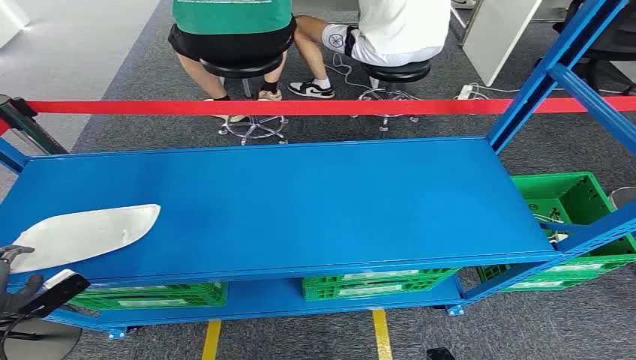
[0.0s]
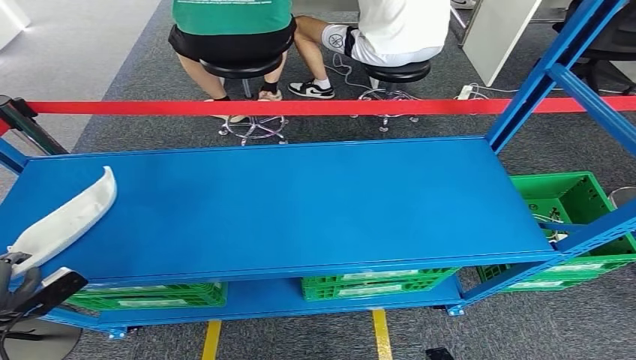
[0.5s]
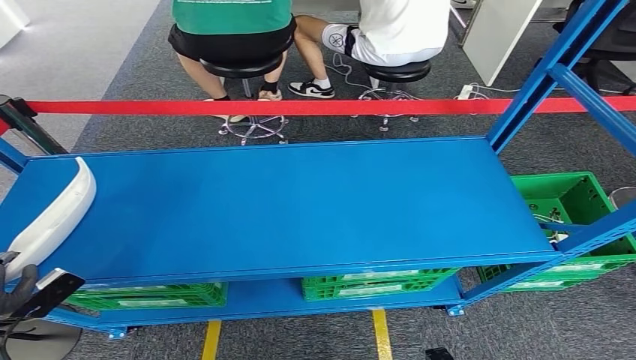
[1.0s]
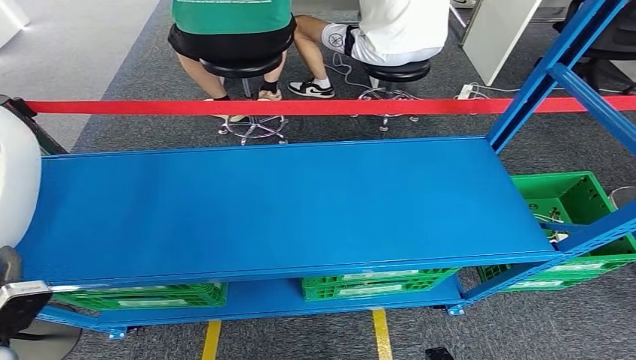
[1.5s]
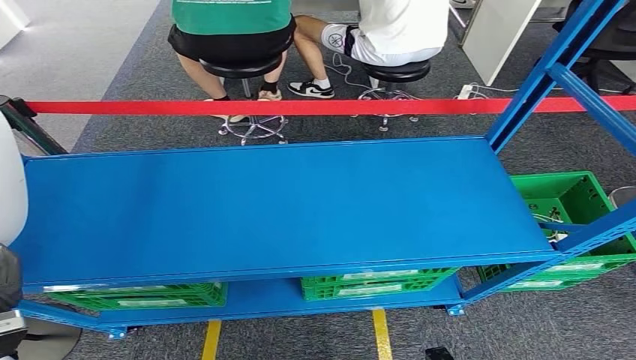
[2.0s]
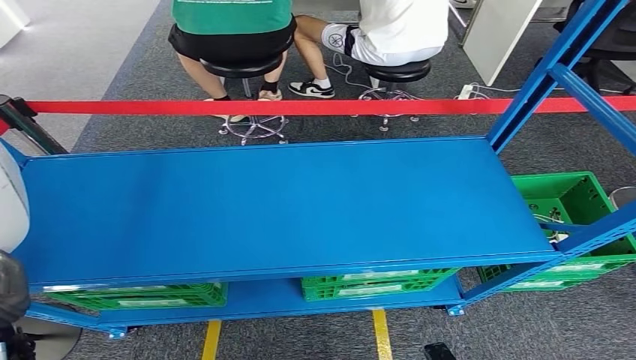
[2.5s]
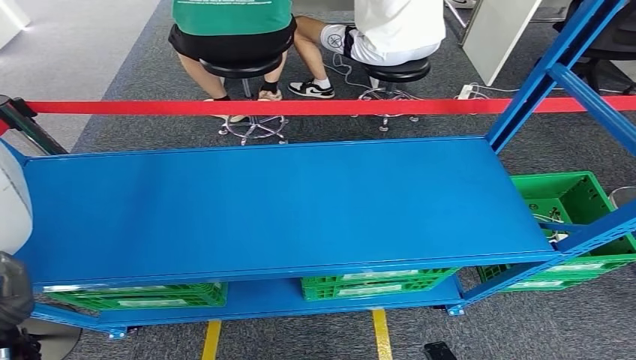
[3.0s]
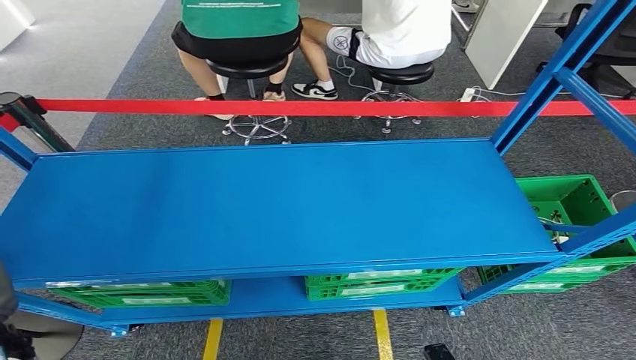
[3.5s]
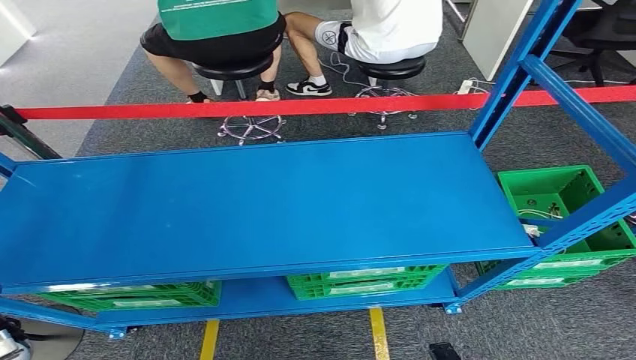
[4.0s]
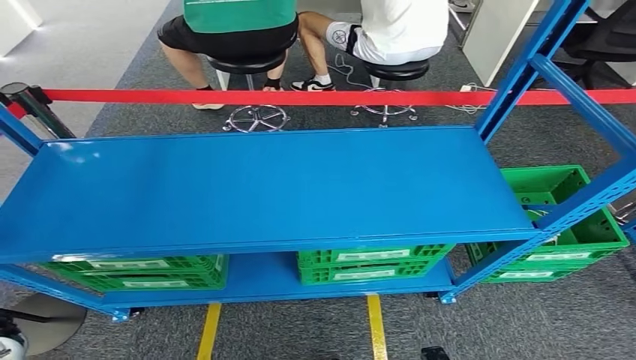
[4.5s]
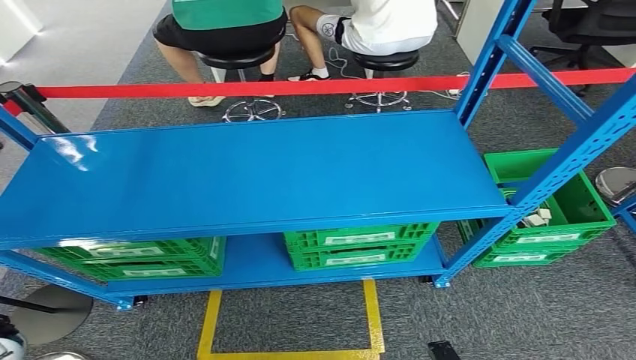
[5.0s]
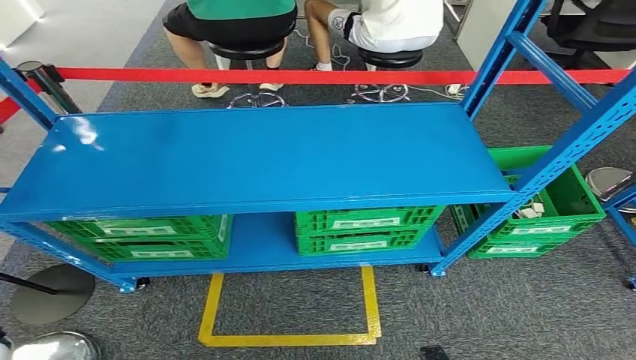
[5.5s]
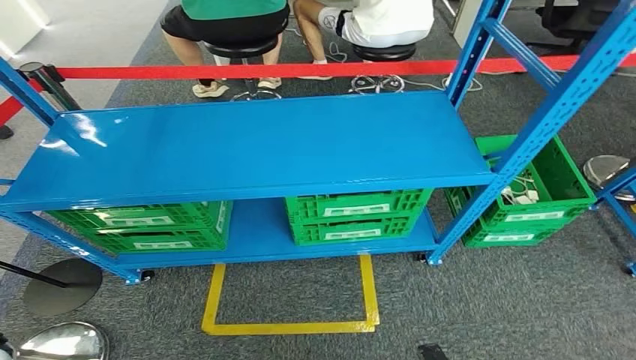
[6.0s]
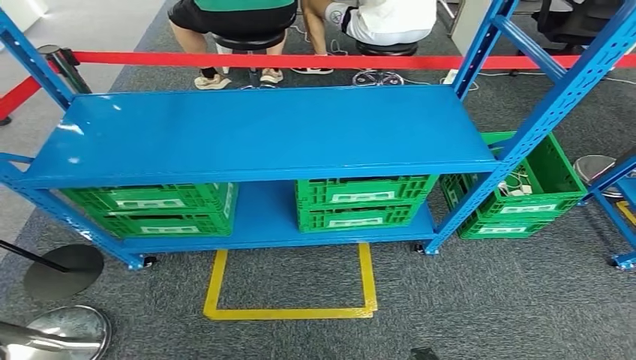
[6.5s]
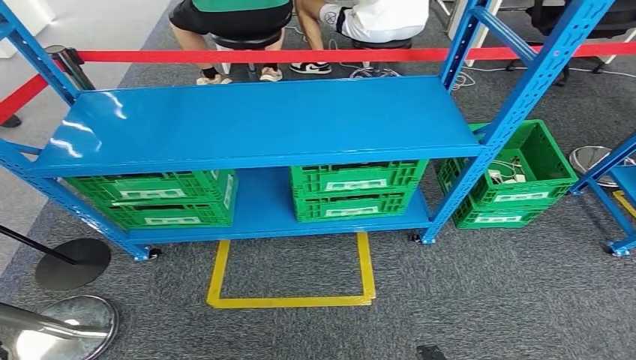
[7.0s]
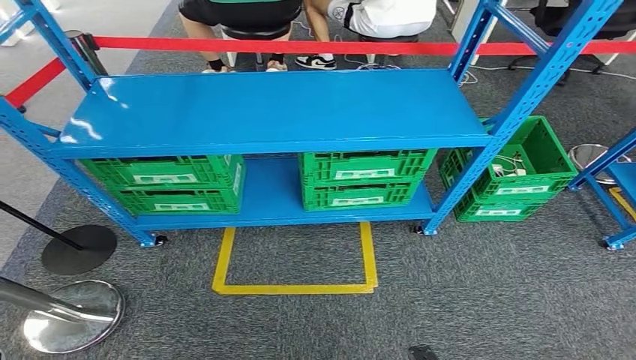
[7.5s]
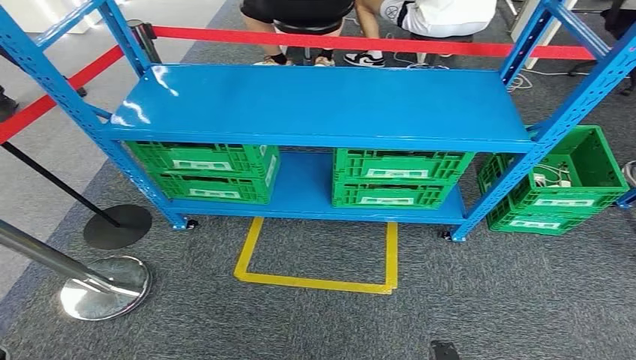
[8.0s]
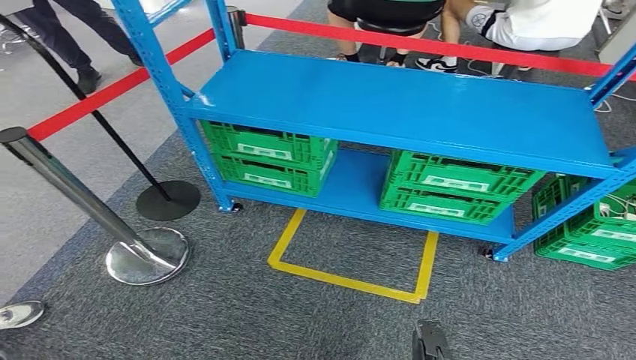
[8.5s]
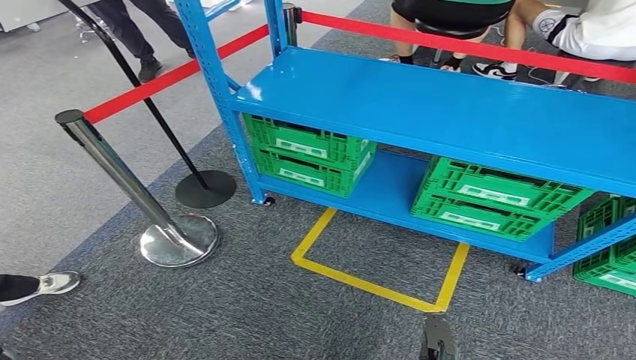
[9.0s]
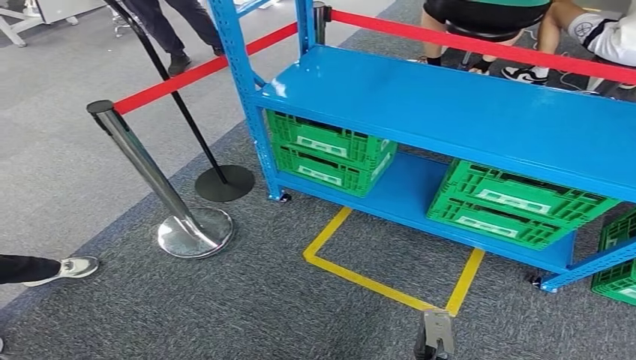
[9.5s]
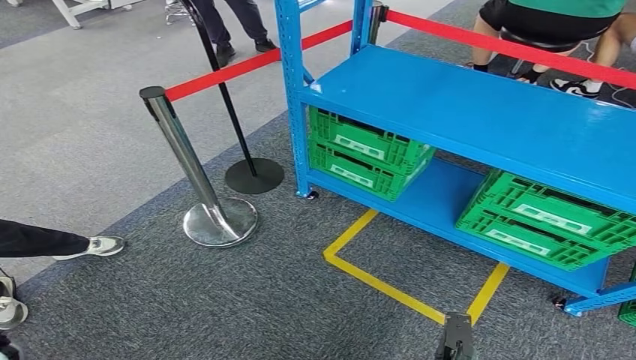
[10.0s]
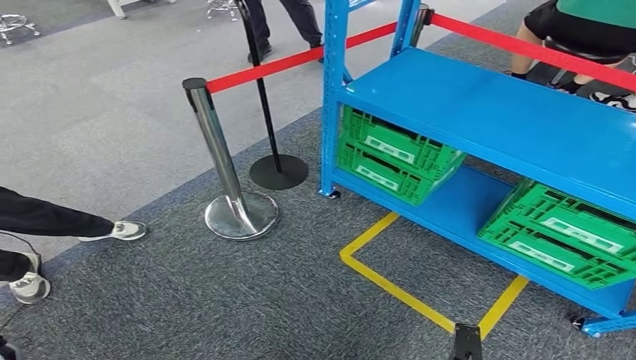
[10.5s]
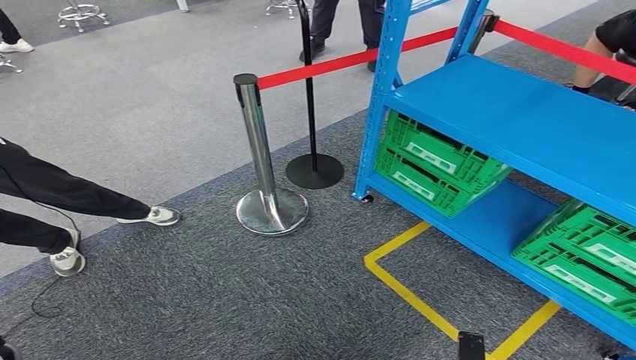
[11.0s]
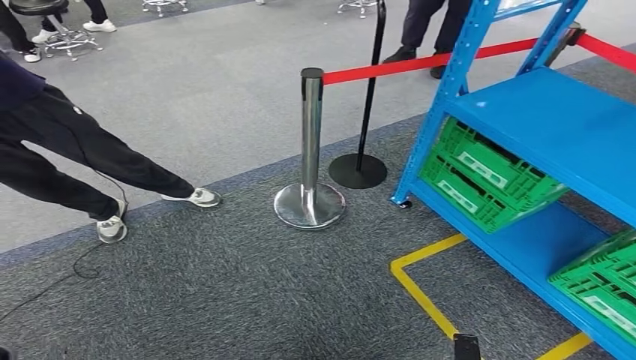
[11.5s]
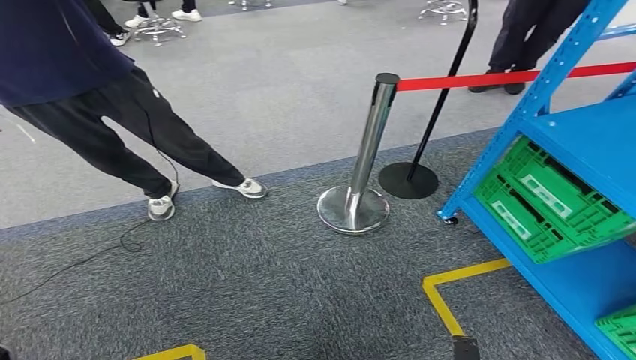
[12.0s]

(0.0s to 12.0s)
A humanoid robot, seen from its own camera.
Step, 0.0s - 4.5s: Pick up the small component from the shelf.

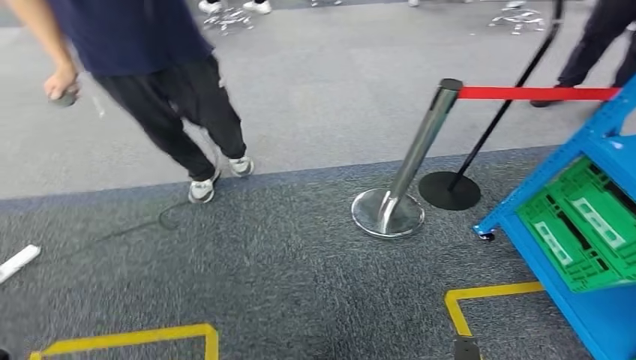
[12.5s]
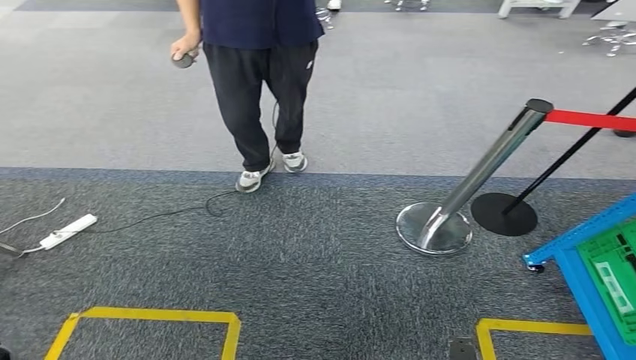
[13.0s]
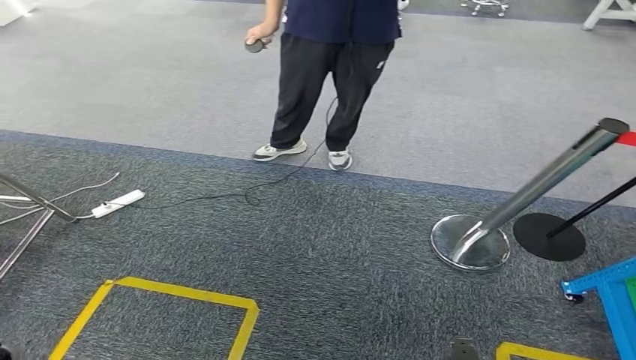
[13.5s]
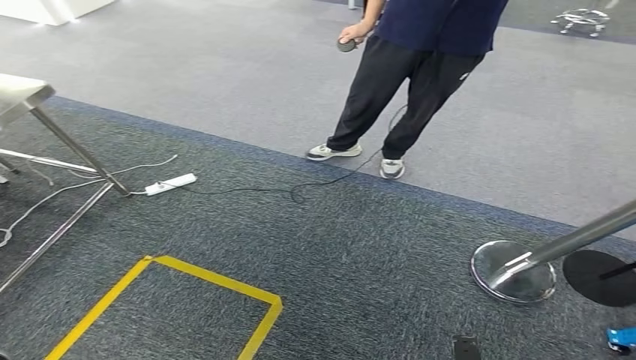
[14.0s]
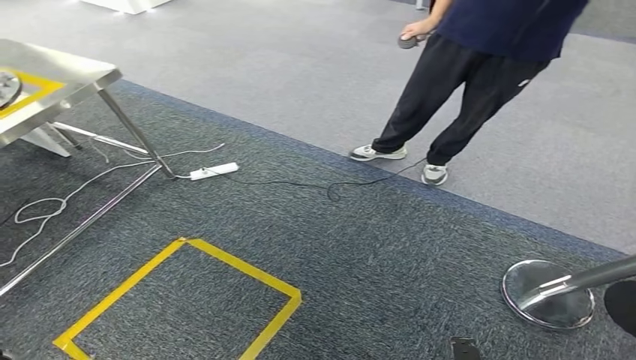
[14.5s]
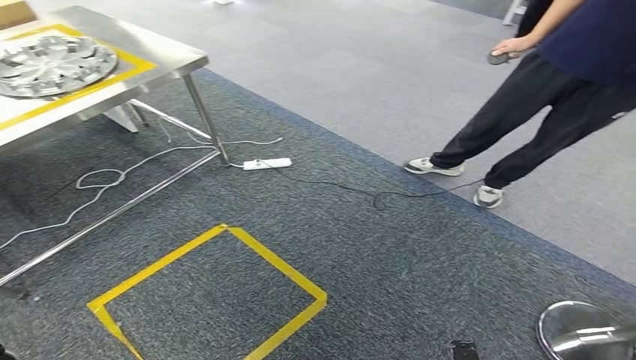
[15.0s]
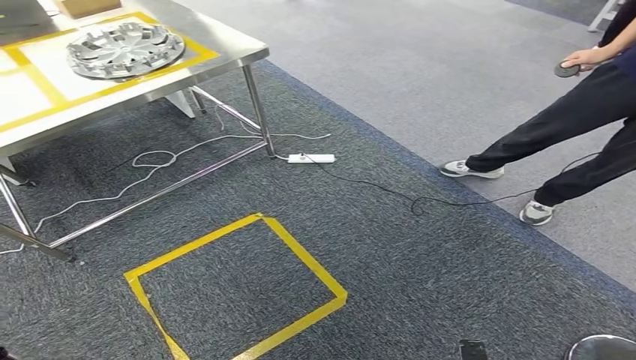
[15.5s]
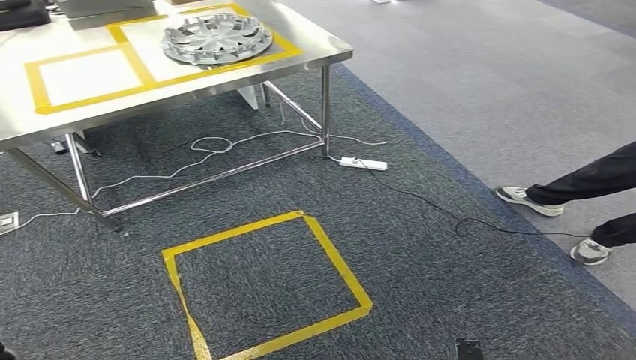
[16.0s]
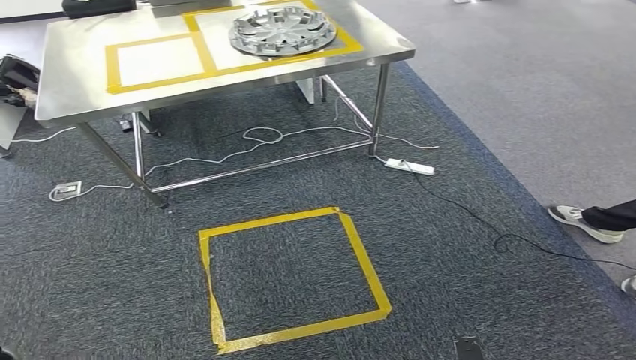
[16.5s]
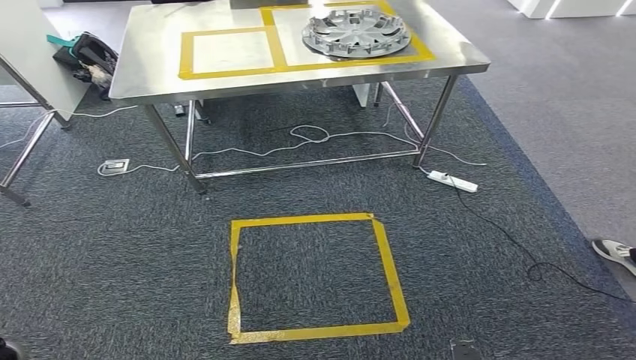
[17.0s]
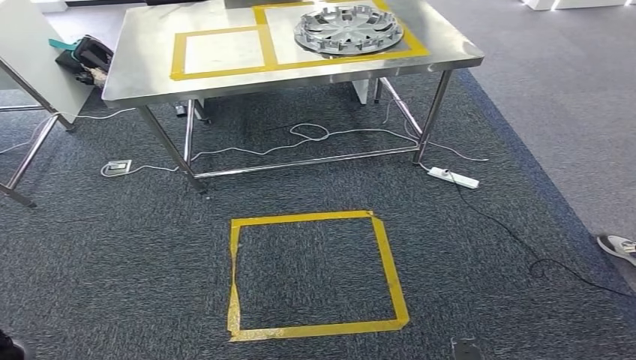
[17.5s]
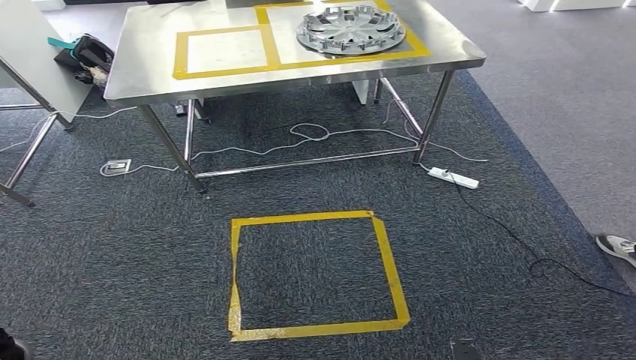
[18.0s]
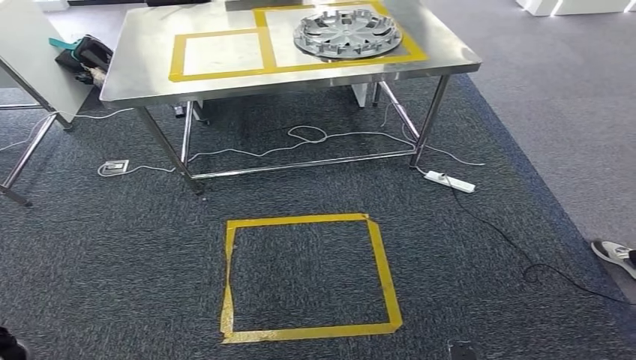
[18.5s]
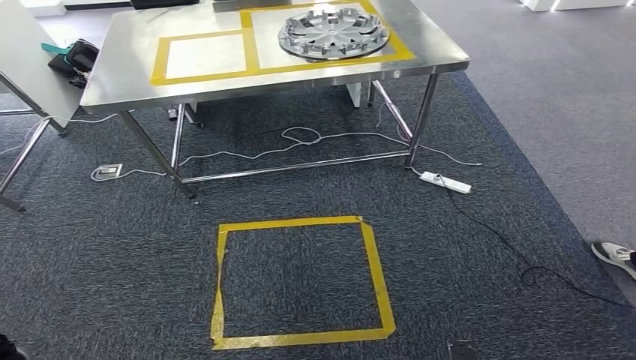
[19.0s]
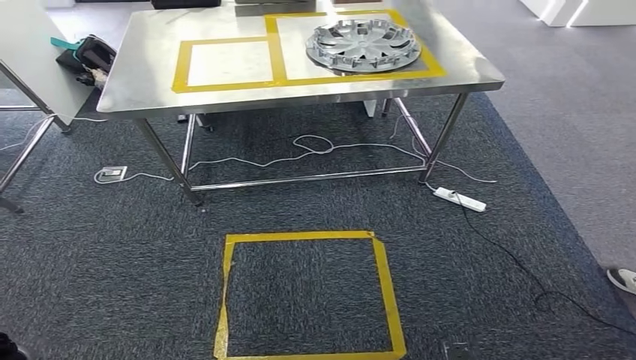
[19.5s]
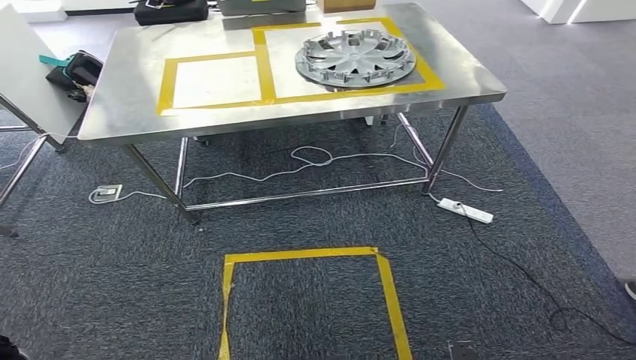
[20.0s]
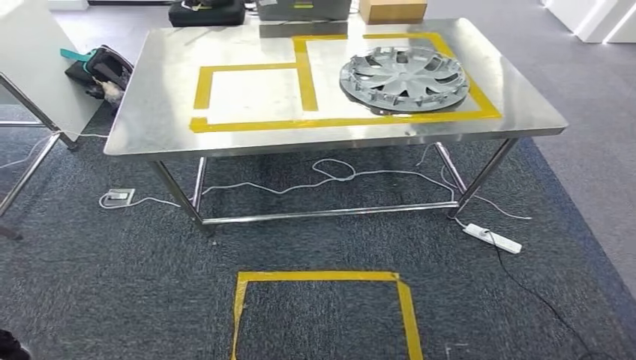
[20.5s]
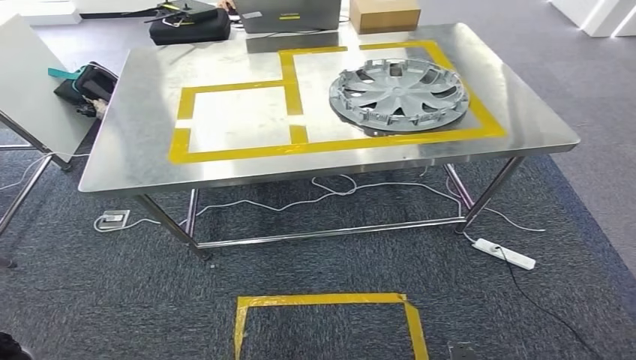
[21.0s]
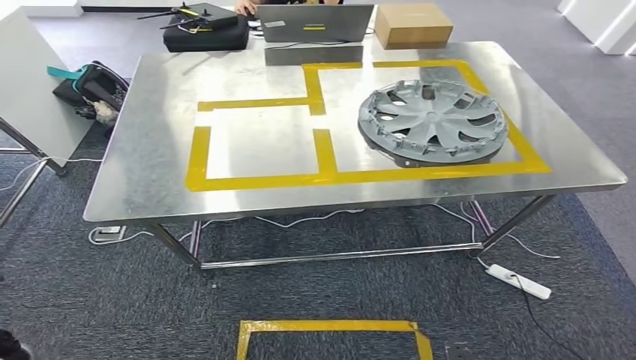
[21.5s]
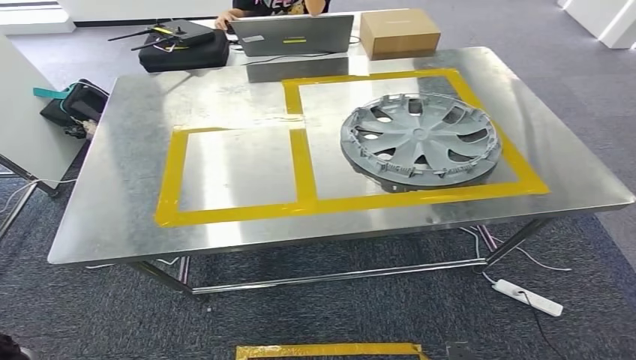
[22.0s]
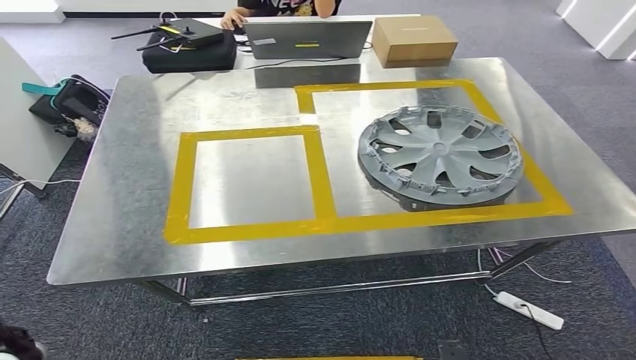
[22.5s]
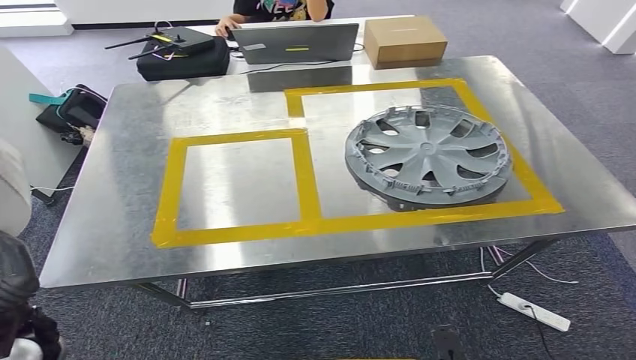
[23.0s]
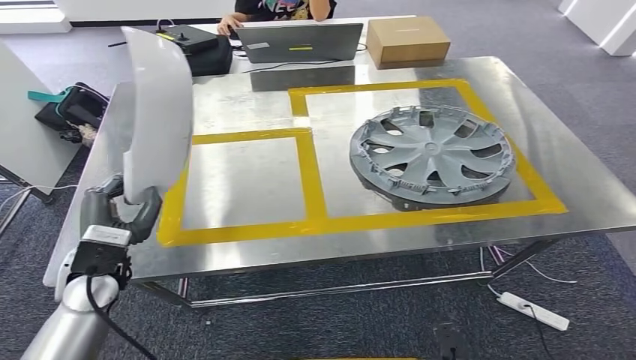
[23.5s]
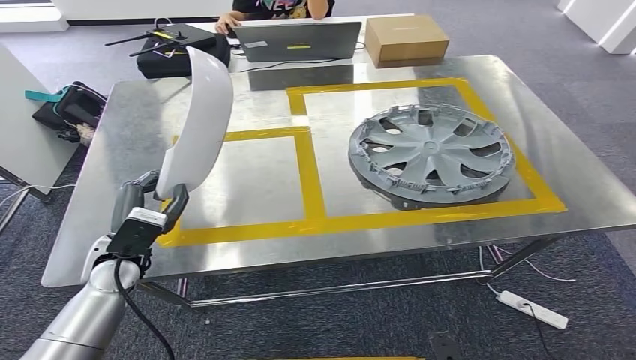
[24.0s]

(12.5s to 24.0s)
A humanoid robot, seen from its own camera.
Step, 12.5s - 22.5s: Move the small component to the workbench.
